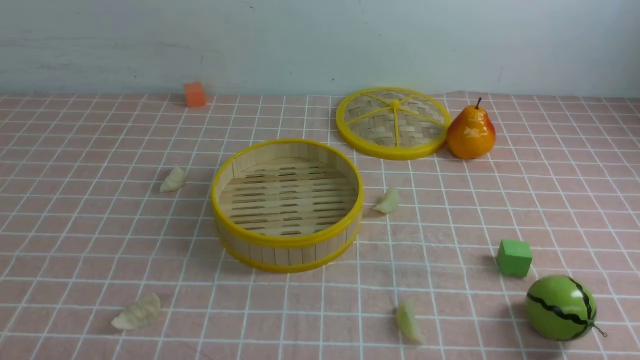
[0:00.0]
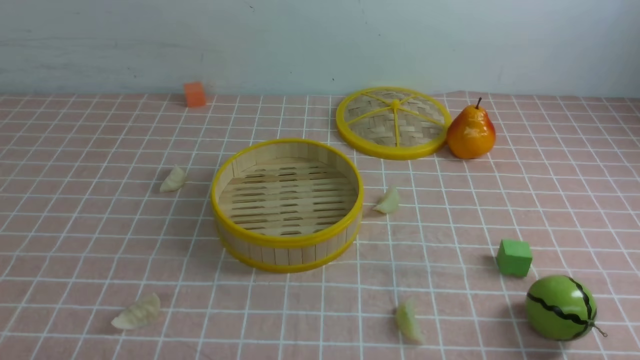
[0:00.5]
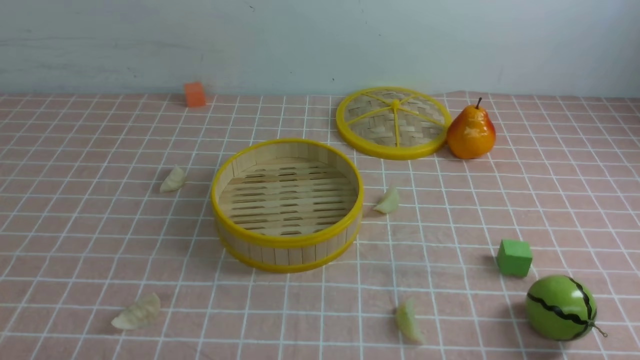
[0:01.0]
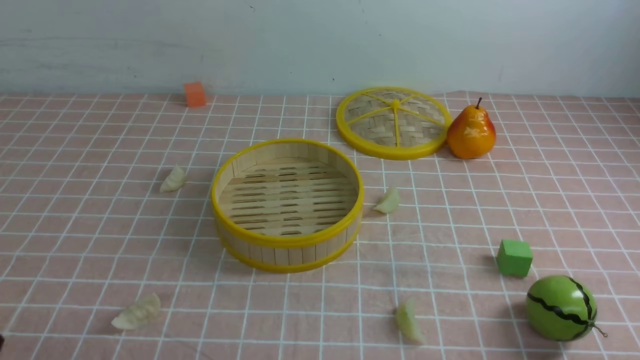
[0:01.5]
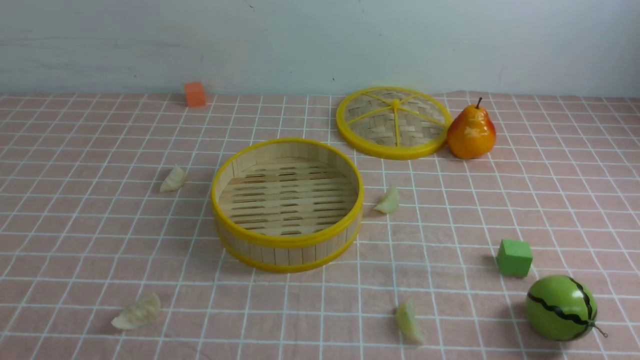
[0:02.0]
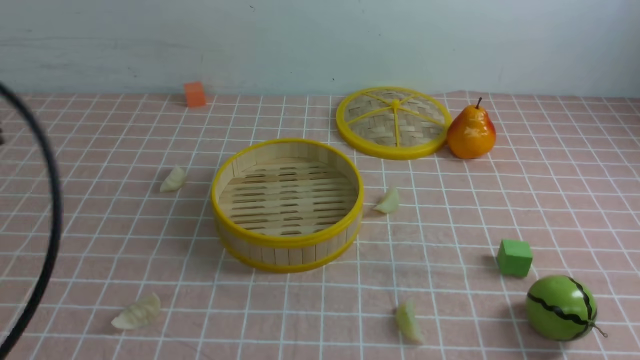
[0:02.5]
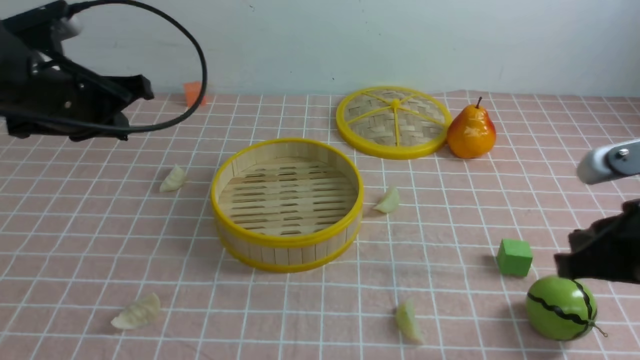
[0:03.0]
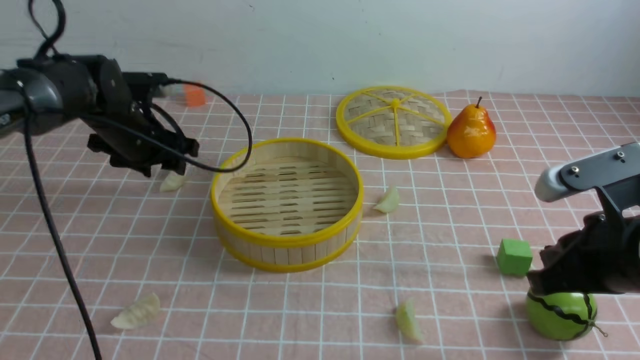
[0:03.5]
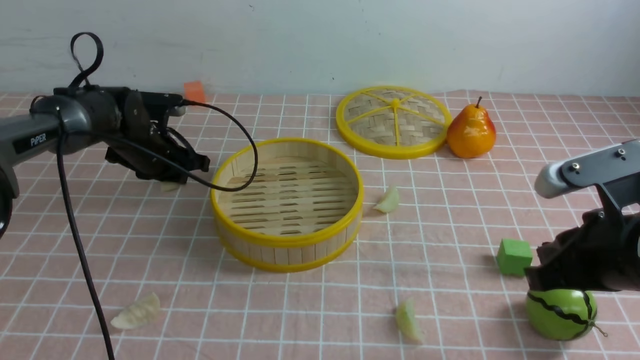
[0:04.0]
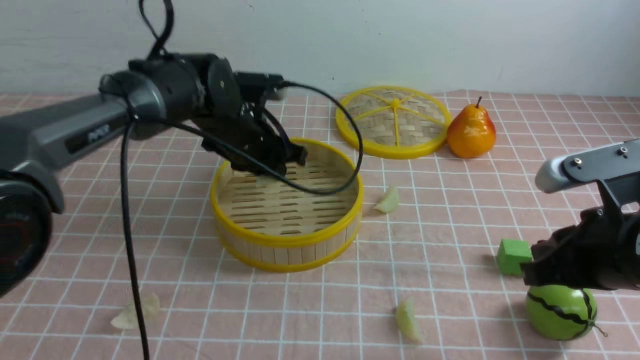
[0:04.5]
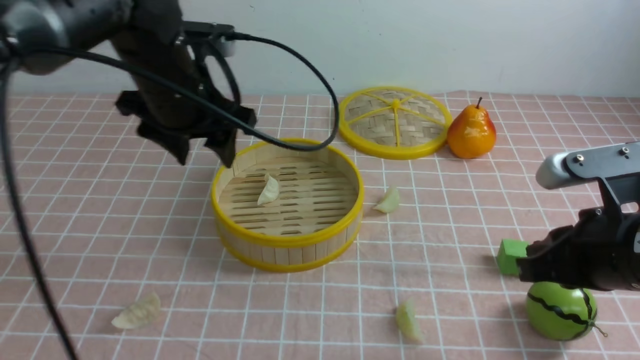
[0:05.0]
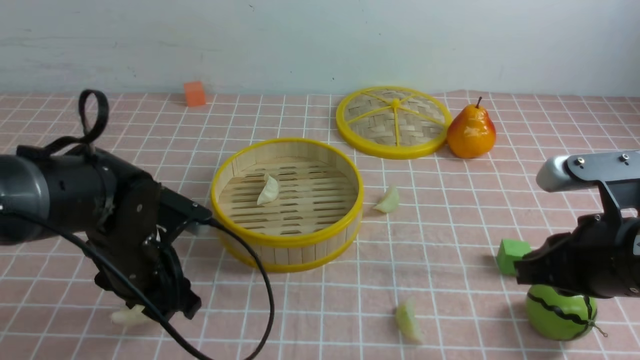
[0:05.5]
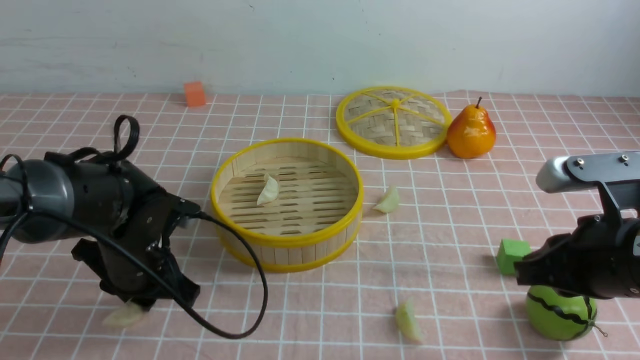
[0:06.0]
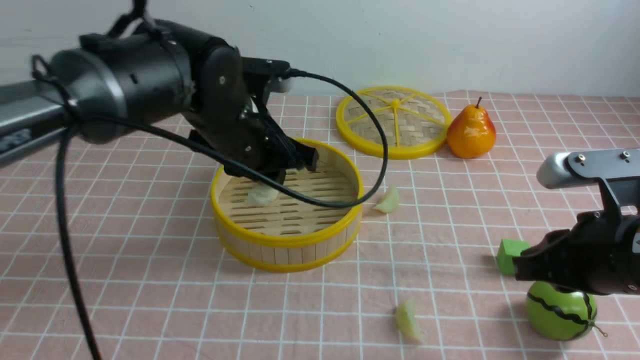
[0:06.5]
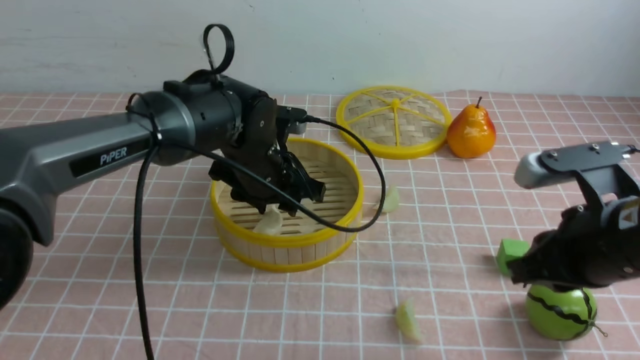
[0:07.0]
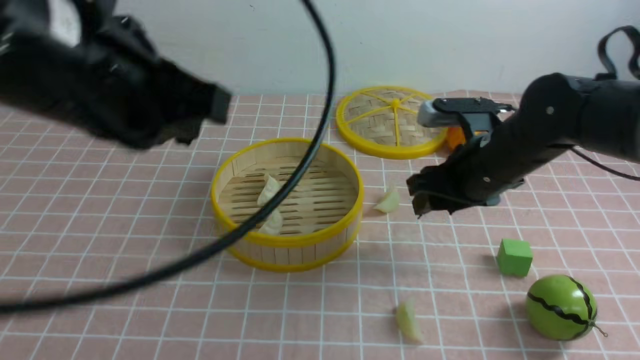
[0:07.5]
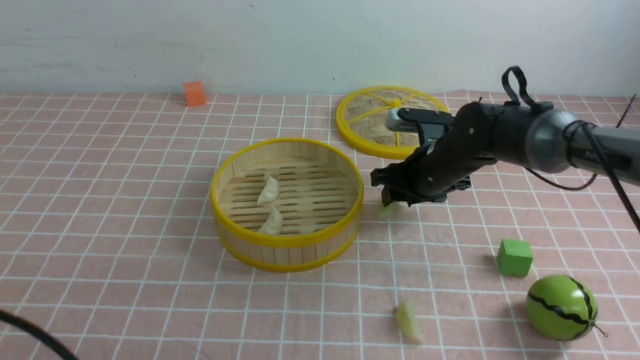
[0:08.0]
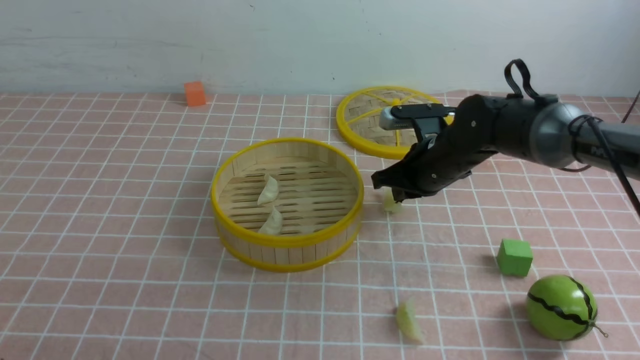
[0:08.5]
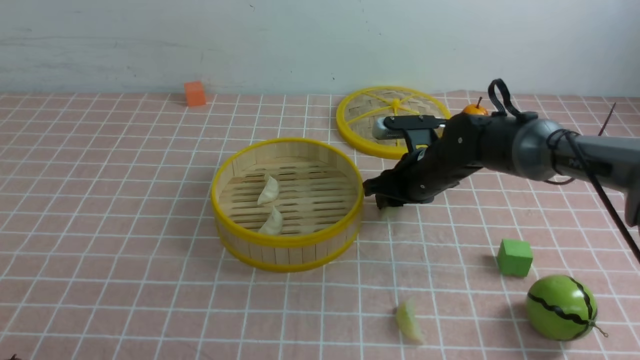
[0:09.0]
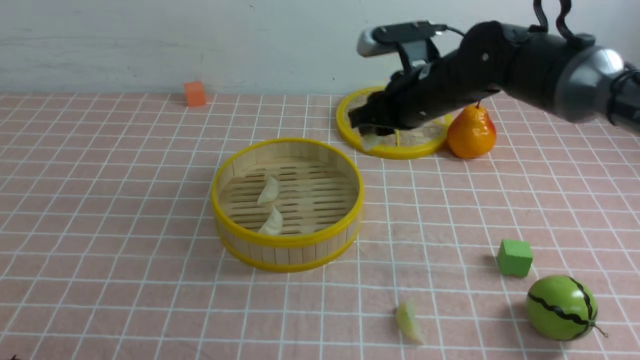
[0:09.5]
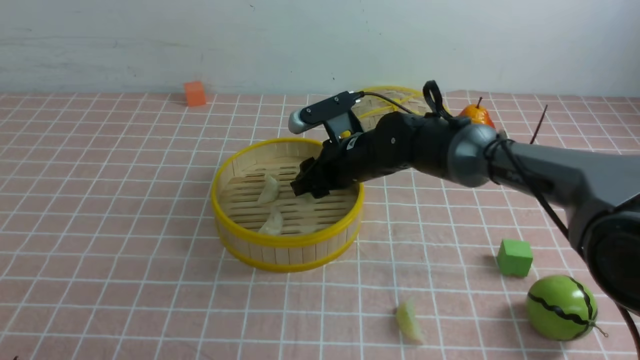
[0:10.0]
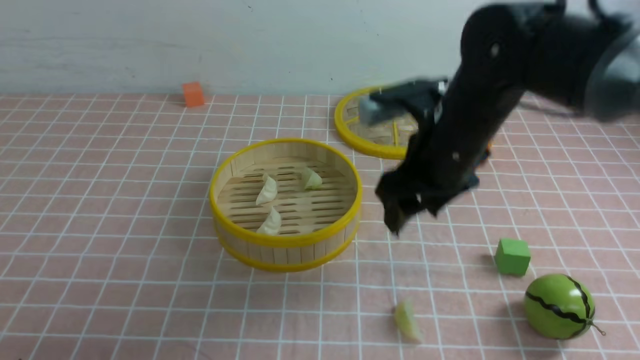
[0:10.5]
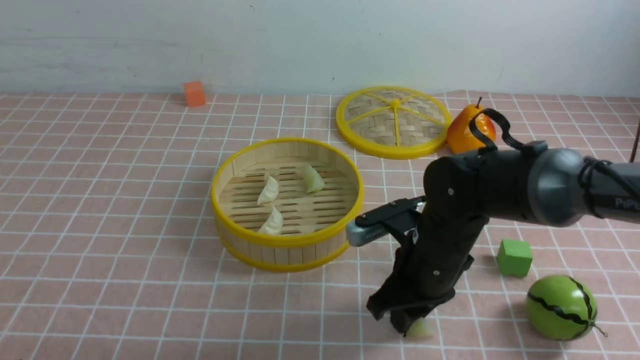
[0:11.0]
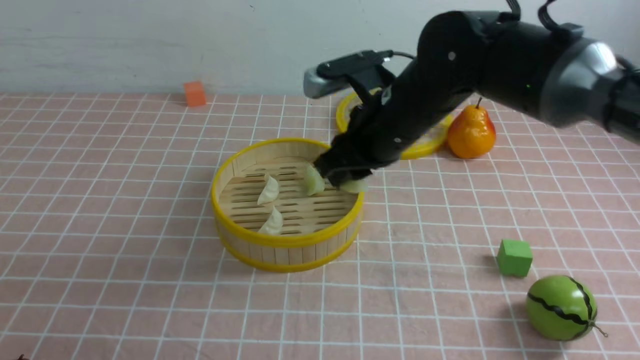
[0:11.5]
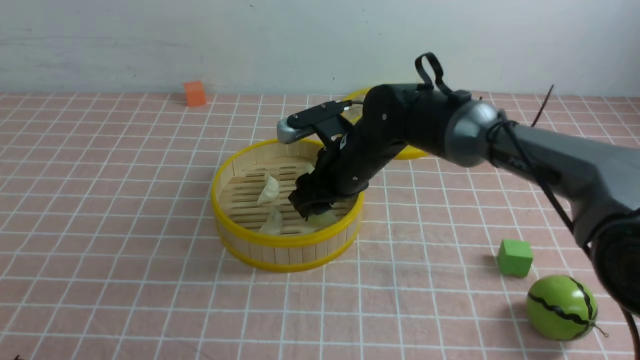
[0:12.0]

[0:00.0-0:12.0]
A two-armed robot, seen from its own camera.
Task of the whole recording: put the dumplings into the steamer on the table with the pink tablecloth.
Step, 0:00.0 to 0:04.0: use the left arm to grab a dumpling.
Step, 0:05.0 to 0:06.0: use the left arm to grab a dumpling.
Step, 0:06.5 to 0:07.0: use the left arm to put the dumpling into the steamer.
Step, 0:07.5 to 0:09.0: use the right arm to grab a dumpling.
Step, 0:09.5 to 0:10.0: use the right arm to put the dumpling into the steamer.
Step, 0:10.5 to 0:11.0: use the right arm to grab a dumpling.
0:02.0 to 0:04.0: The left gripper goes about 40 cm forward, and opens, then closes again. The right gripper heads forward, covering roughly 20 cm.
0:04.0 to 0:06.0: The left gripper moves backward, about 15 cm, and opens, then closes again.
0:06.0 to 0:08.0: The left gripper moves backward and upward, about 25 cm, and closes its fingers. Meanwhile the right gripper heads forward, covering roughly 25 cm, and opens up.
0:08.0 to 0:10.0: The right gripper moves to the left, about 10 cm, and closes, then opens again.
0:10.0 to 0:12.0: The right gripper moves some 10 cm backward and comes back.

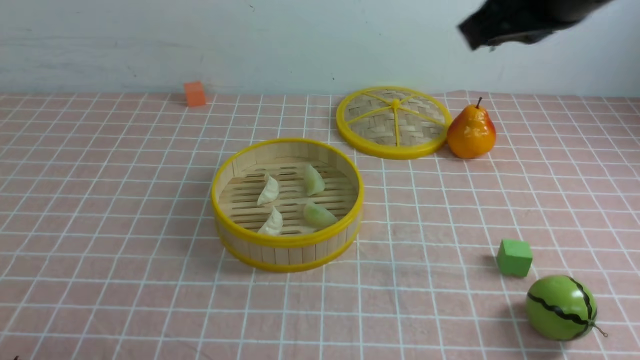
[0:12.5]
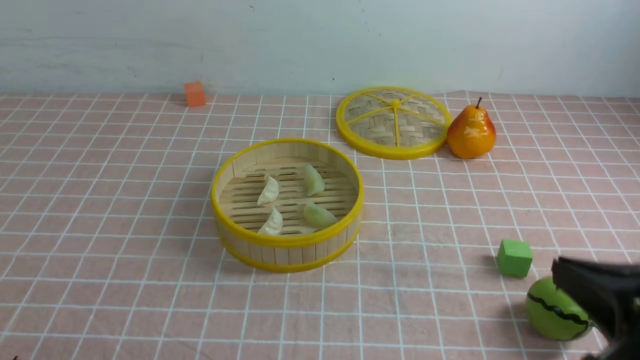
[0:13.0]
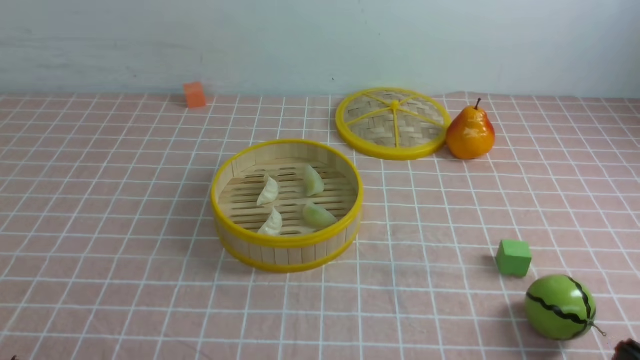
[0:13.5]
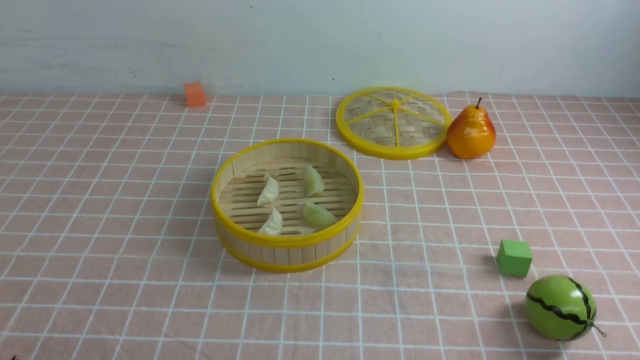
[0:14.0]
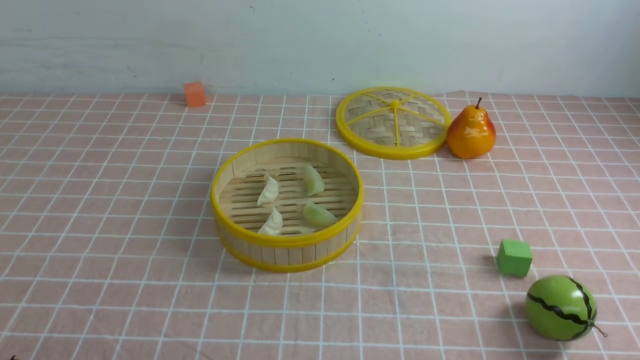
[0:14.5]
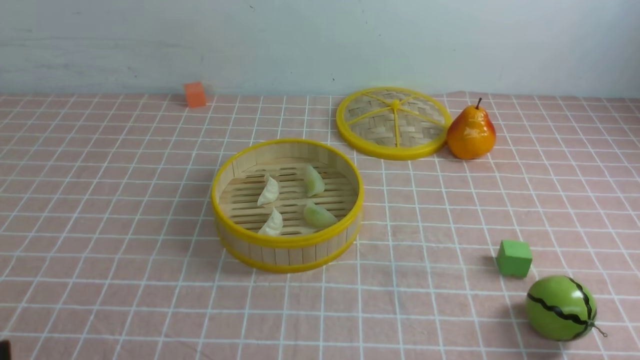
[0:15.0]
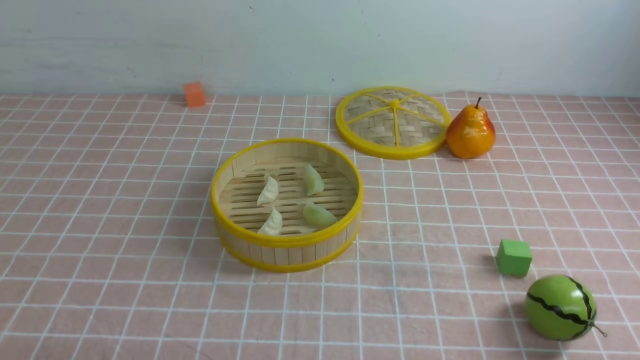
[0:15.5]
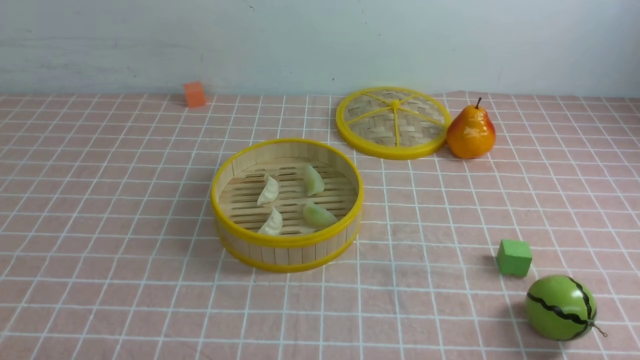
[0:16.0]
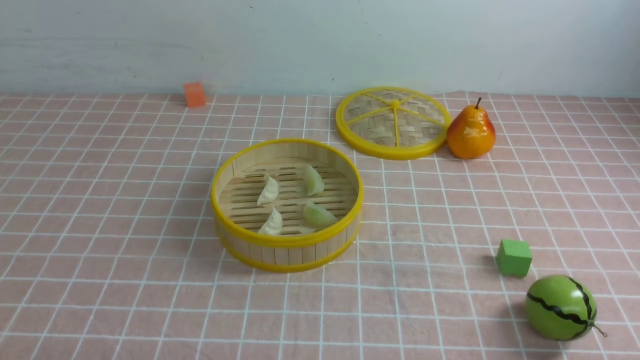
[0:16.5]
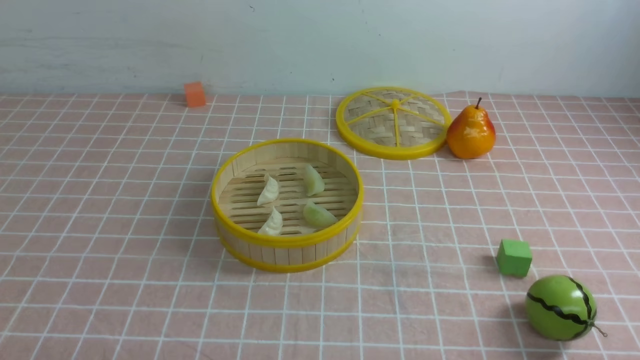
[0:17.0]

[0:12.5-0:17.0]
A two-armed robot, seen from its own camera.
Task of the whole recording: put the dumplings into the steamer on the table with the pink tablecloth.
0:12.5 to 0:14.5: The right gripper travels downward, backward and to the right by some 35 cm.

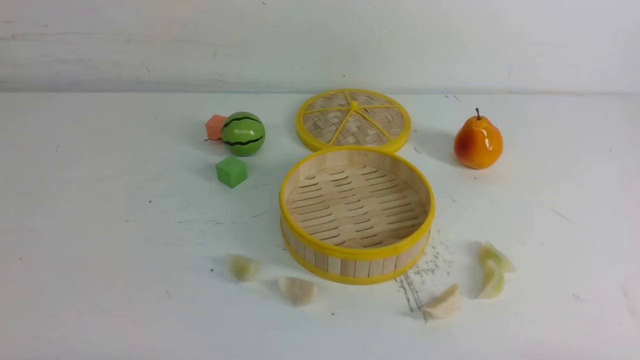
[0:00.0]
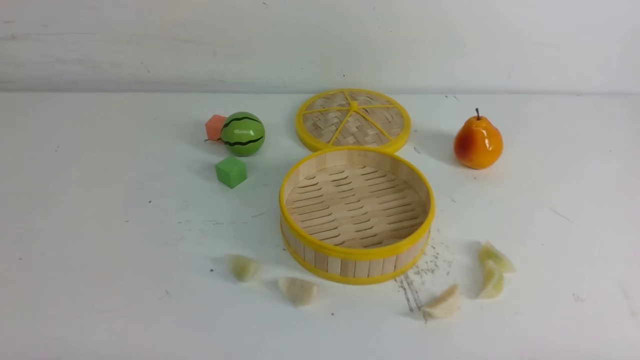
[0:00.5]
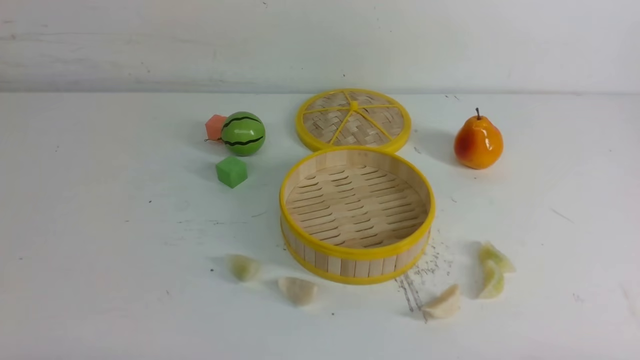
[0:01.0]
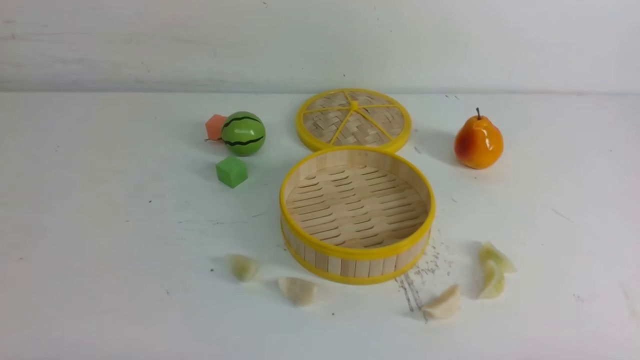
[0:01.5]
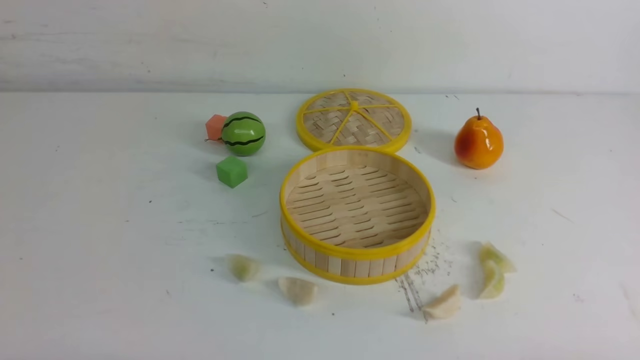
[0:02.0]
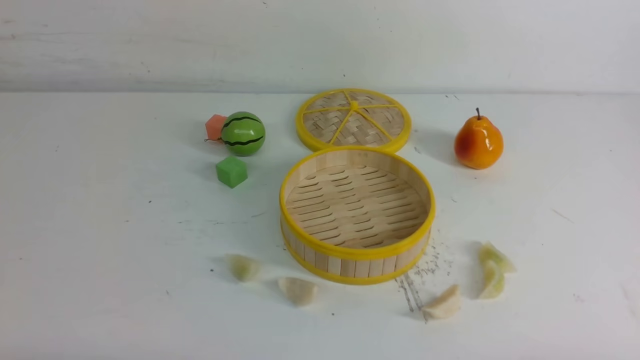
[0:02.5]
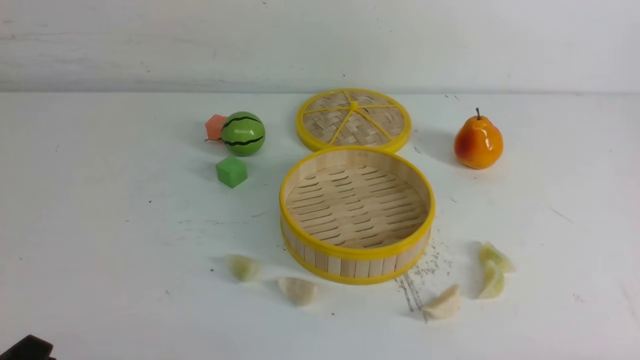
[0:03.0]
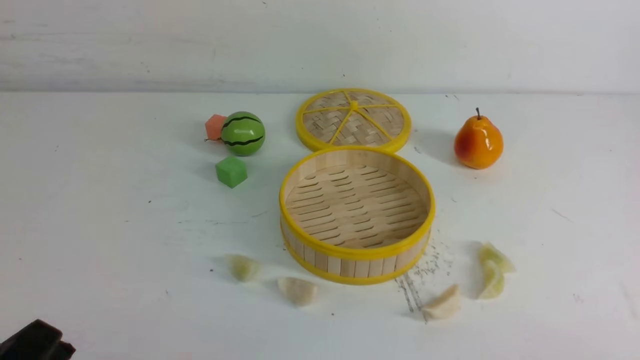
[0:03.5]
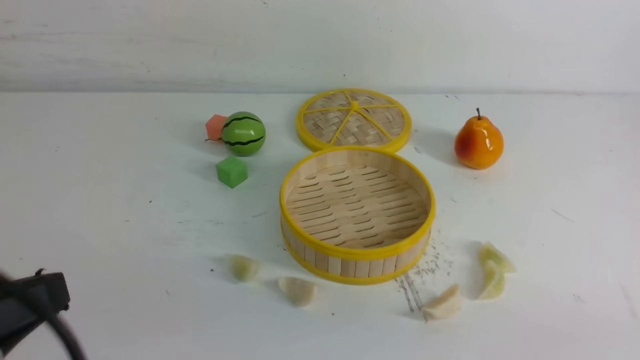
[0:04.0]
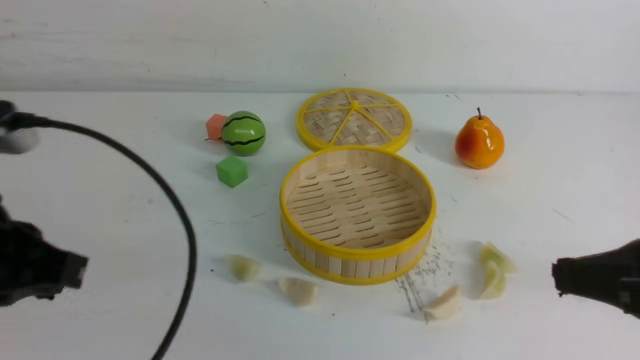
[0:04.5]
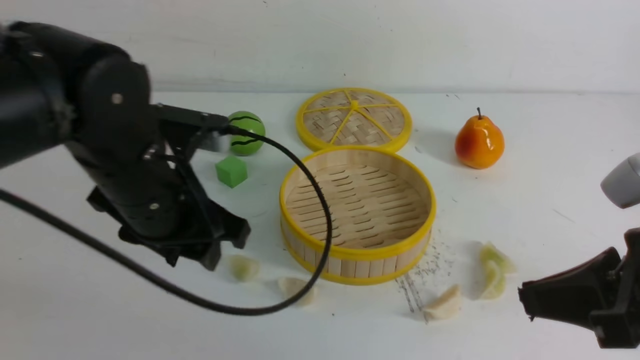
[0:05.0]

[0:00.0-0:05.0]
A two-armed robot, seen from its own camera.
Task of the whole recording: put the dumplings into the steamer on the white table.
0:02.5 to 0:05.0: The right gripper goes some 20 cm upward, forward and to the left, and closes; the left gripper is displaced forward, to the right and upward by roughly 30 cm, and closes, then reopens.
